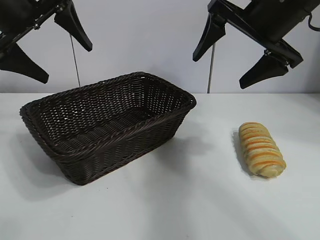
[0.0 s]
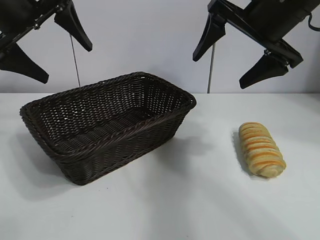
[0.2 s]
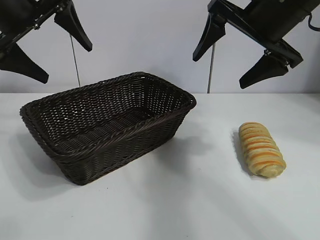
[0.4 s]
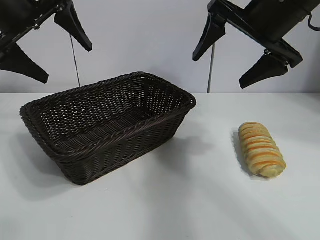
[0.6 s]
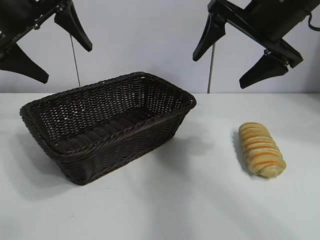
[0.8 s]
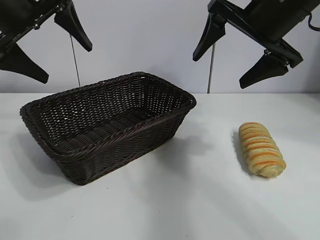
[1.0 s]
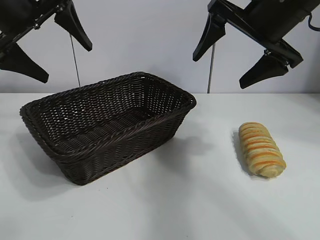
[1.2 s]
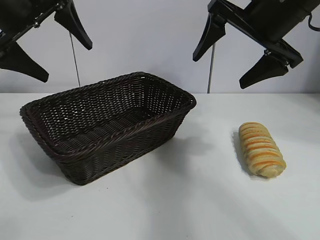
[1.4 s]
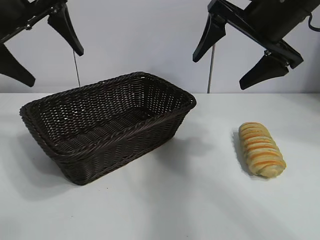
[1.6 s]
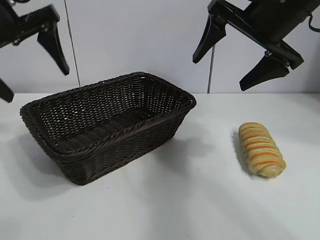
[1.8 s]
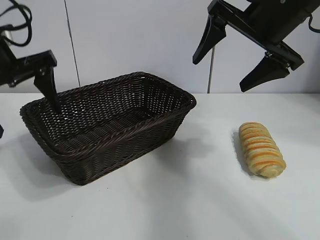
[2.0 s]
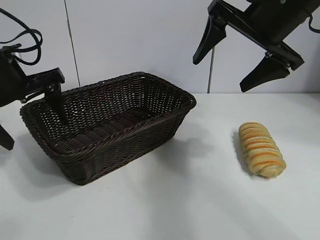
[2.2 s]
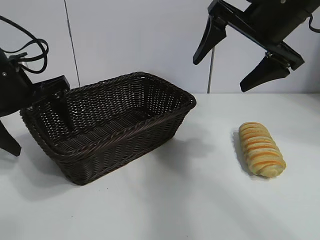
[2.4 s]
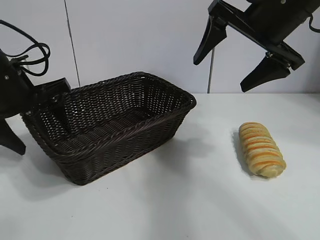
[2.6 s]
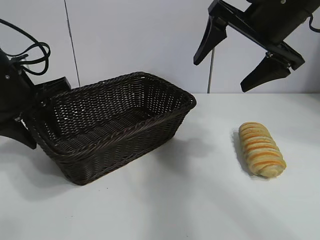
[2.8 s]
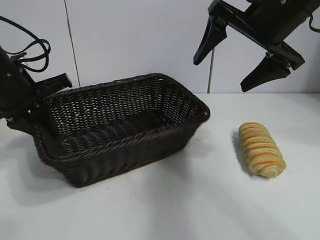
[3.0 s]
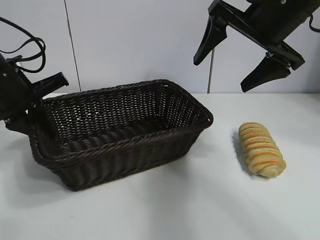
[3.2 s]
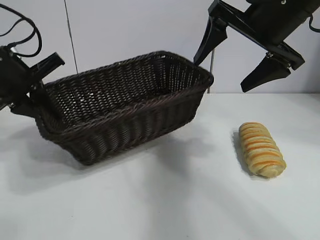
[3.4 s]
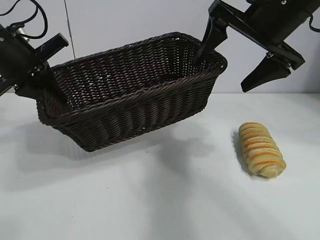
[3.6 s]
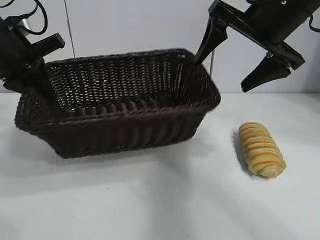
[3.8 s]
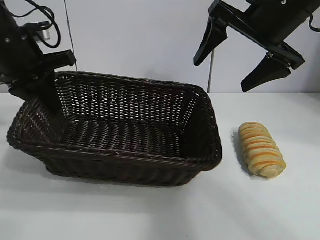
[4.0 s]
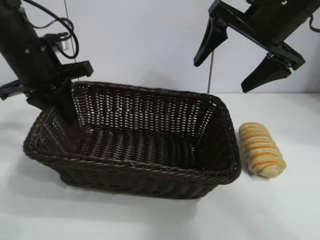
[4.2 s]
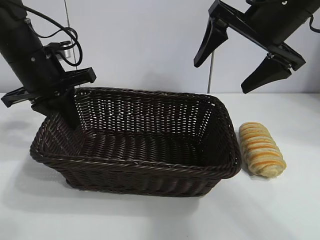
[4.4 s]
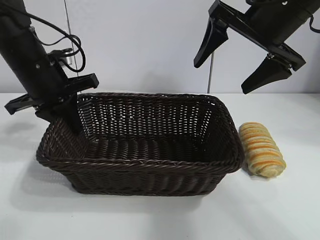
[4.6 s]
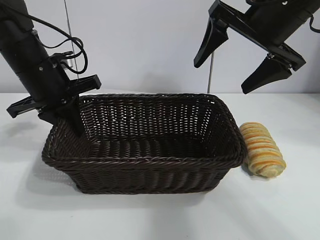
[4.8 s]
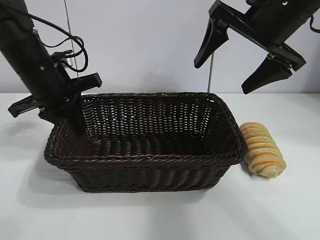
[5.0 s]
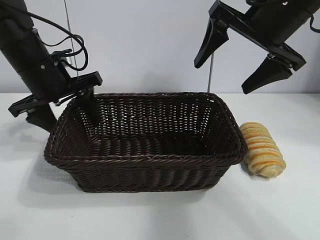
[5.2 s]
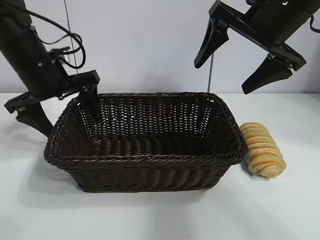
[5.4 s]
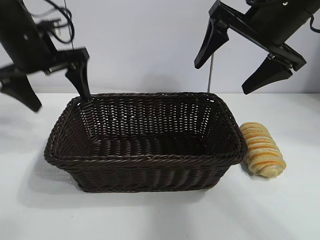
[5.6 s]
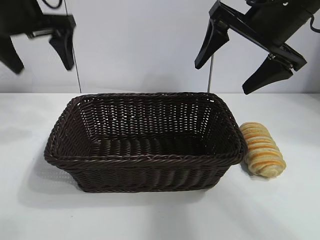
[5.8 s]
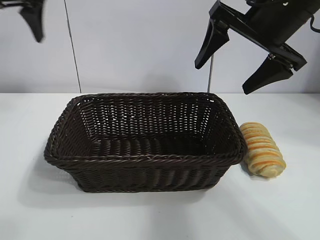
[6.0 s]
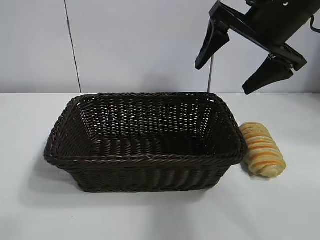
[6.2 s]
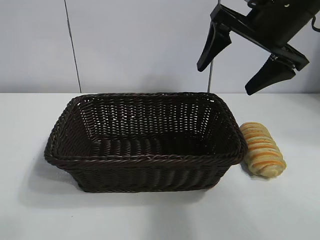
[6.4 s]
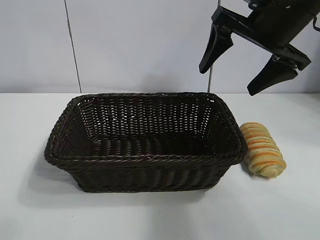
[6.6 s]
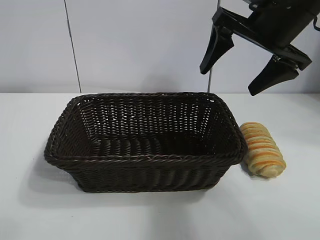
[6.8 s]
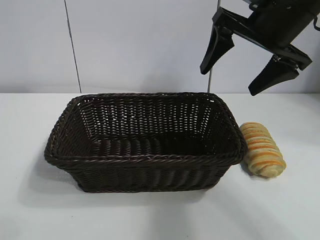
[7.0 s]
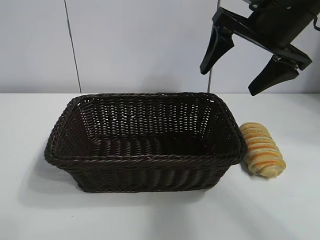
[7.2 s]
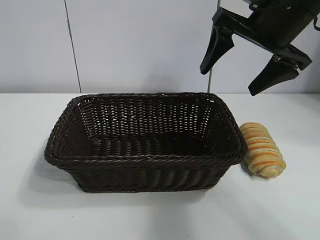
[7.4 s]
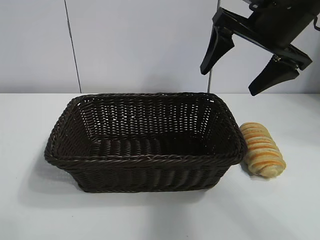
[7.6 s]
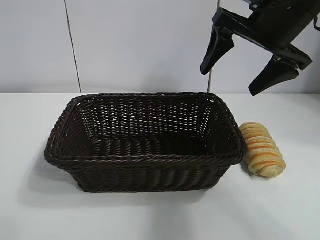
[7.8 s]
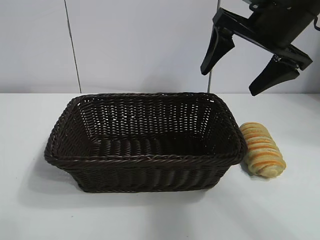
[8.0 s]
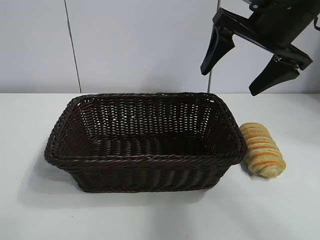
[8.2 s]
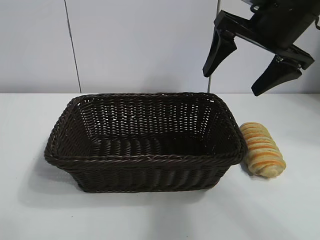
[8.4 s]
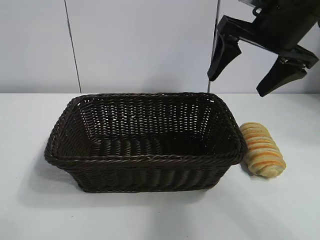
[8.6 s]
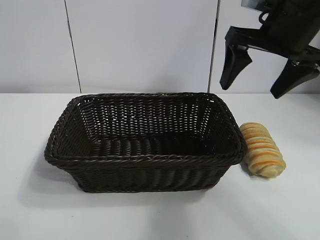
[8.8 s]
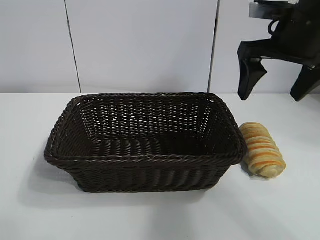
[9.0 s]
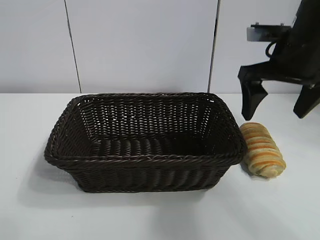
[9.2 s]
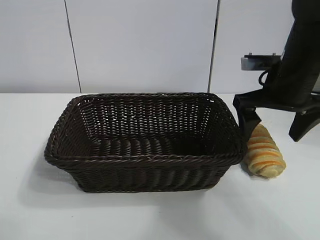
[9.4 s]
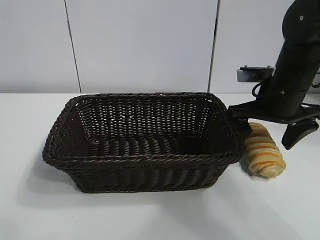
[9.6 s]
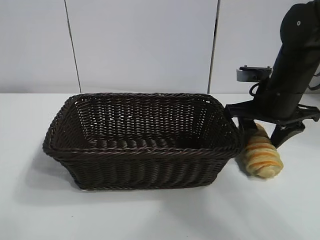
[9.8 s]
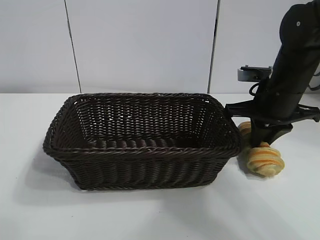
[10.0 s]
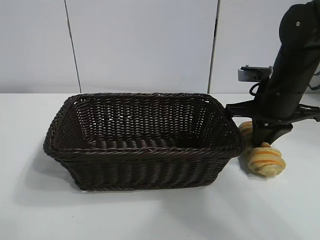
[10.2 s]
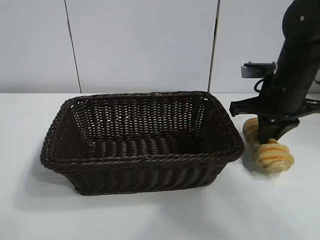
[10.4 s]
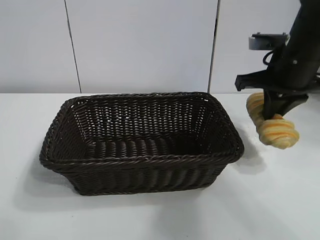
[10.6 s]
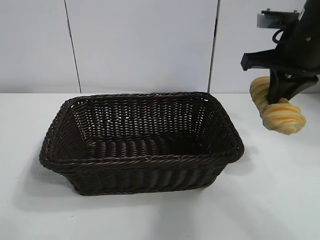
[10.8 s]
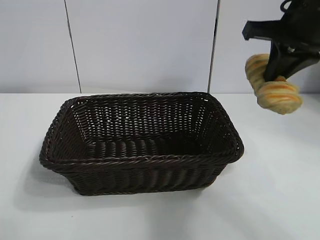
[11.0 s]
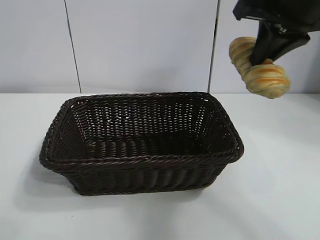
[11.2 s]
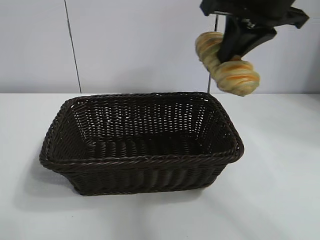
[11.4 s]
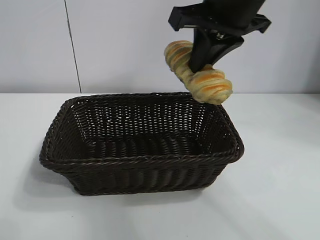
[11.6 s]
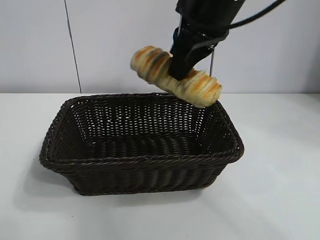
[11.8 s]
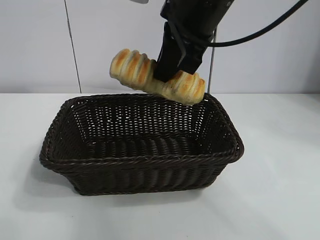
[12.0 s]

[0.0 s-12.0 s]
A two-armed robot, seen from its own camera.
Task of the whole recording: pick up the long bread and put it into the basket.
Step, 1.4 to 3.0 s: Grasp the basket with the left gripper.
Step, 3.2 to 5.0 s: Place the basket in the center of the table with the left gripper.
Step, 5.4 to 10.0 s: Grasp the long bread with right gripper.
